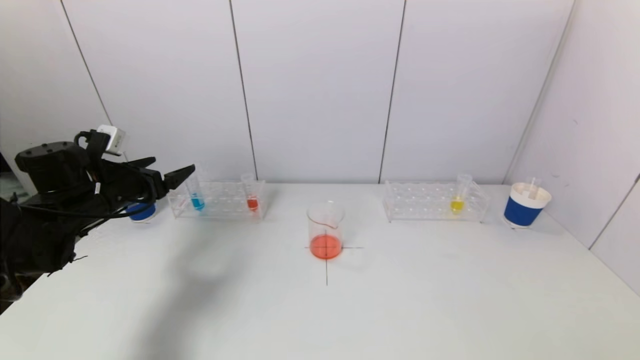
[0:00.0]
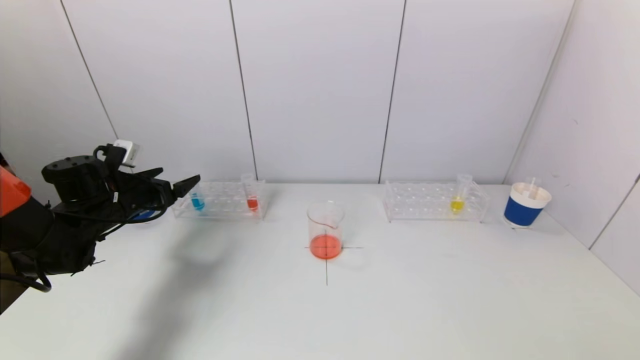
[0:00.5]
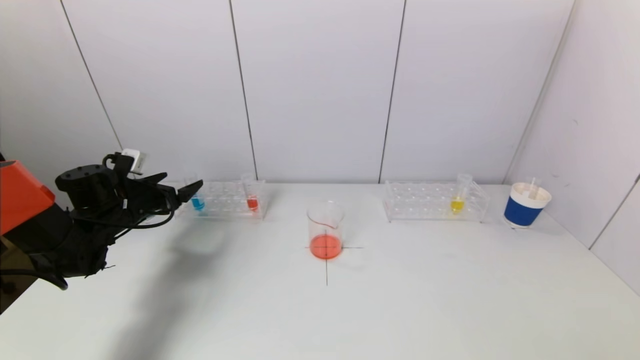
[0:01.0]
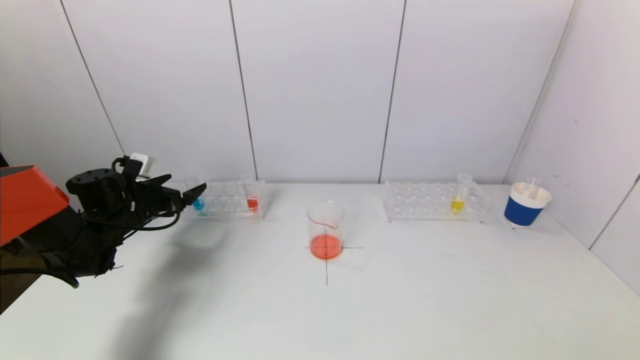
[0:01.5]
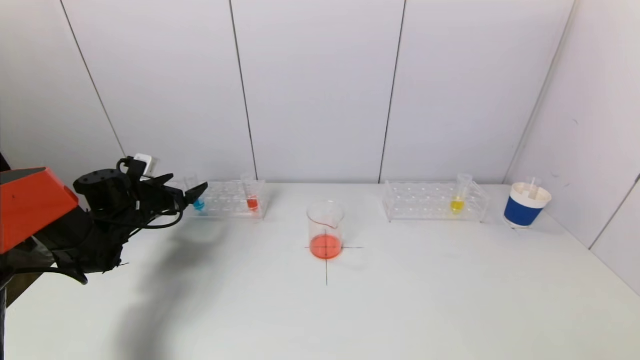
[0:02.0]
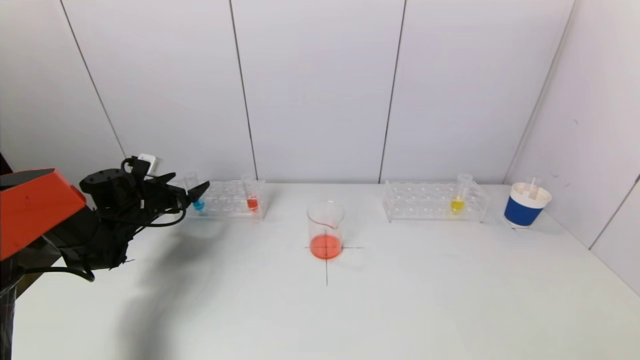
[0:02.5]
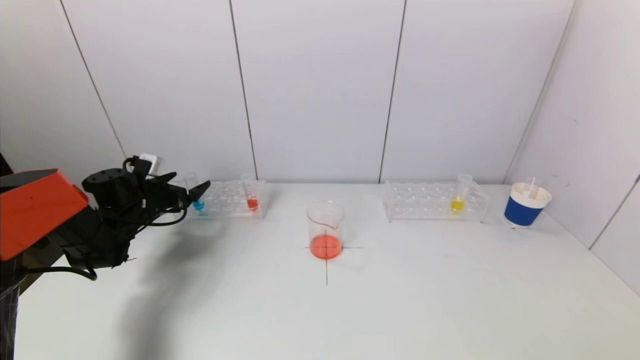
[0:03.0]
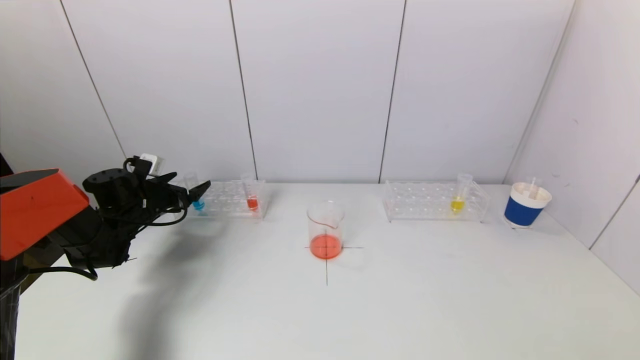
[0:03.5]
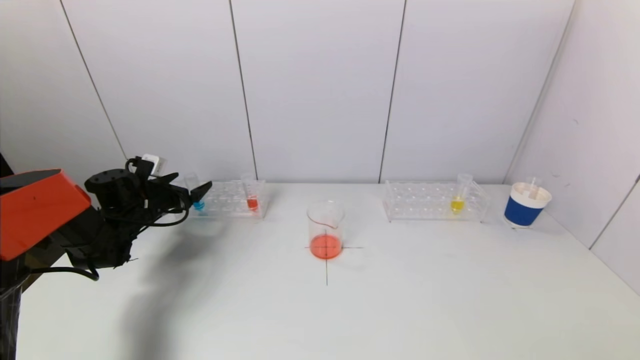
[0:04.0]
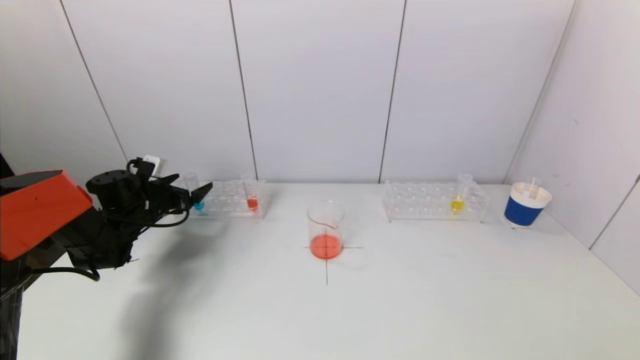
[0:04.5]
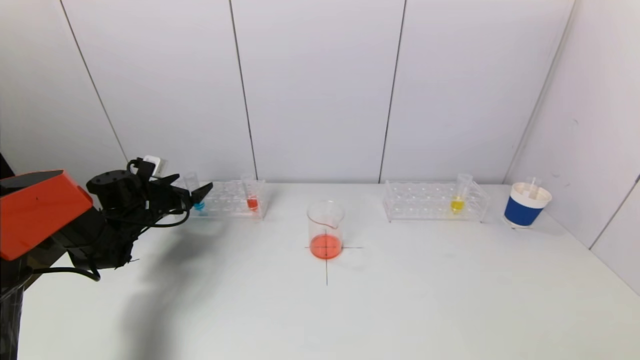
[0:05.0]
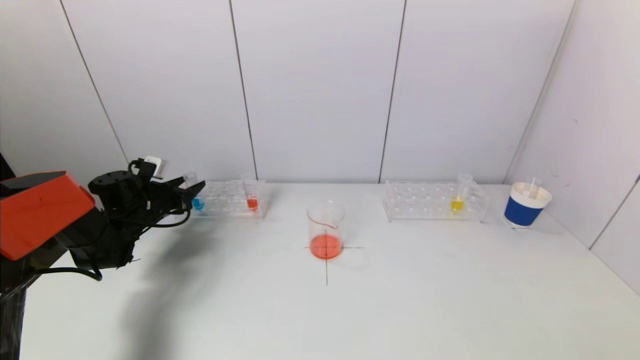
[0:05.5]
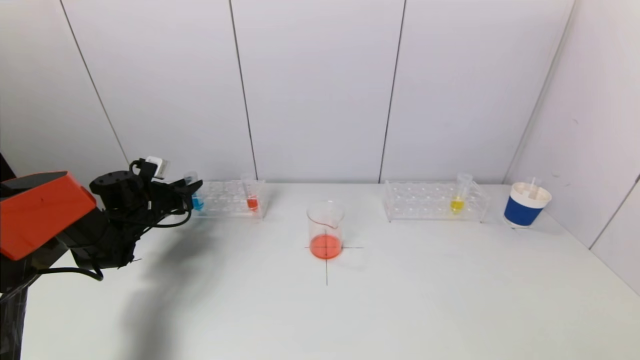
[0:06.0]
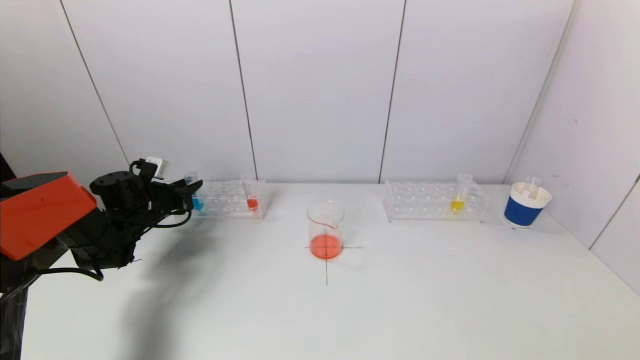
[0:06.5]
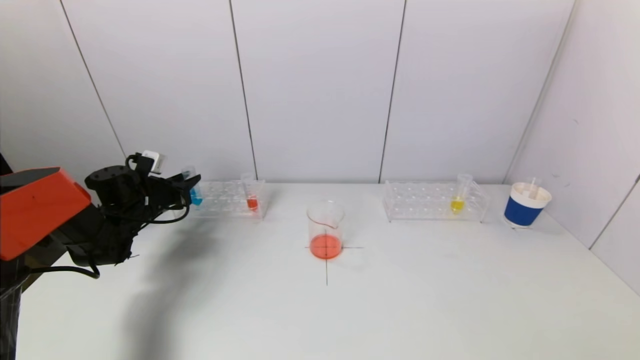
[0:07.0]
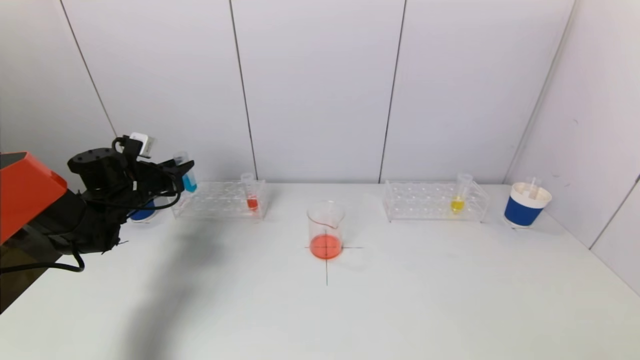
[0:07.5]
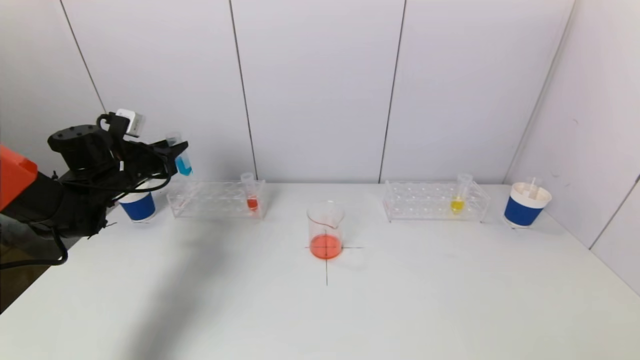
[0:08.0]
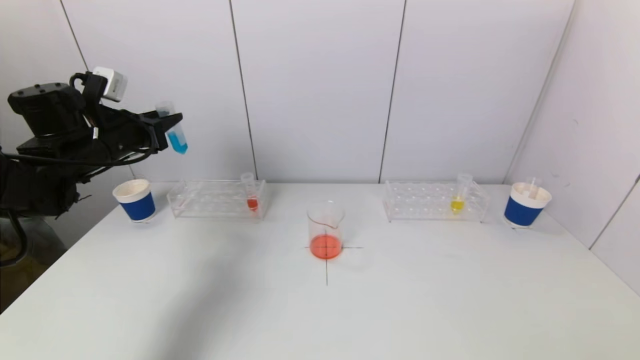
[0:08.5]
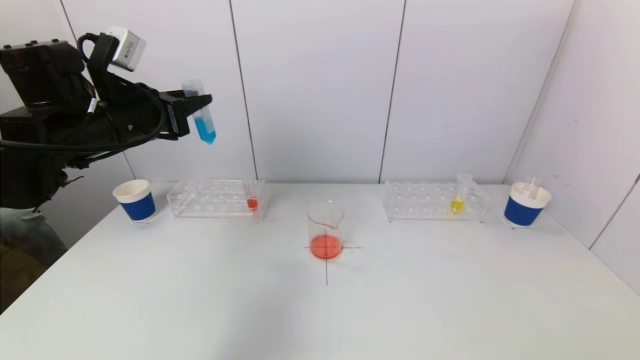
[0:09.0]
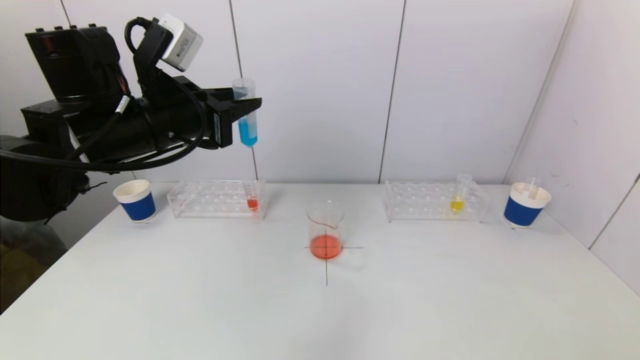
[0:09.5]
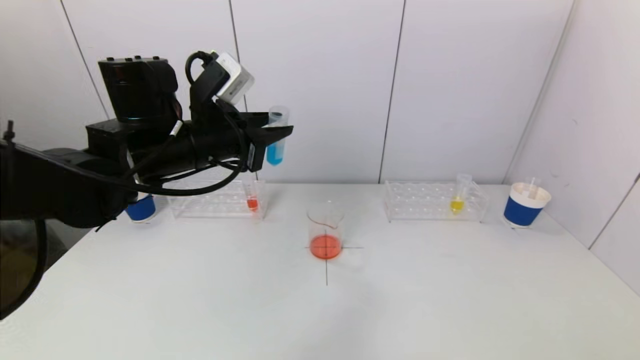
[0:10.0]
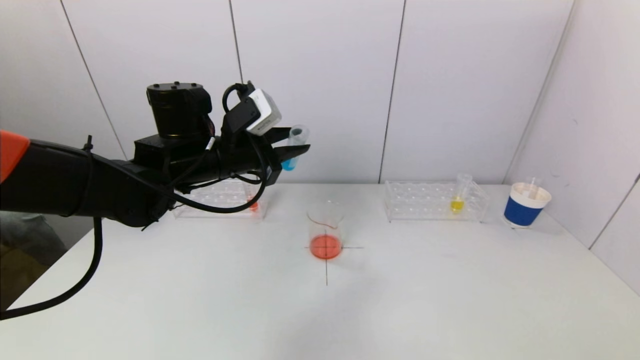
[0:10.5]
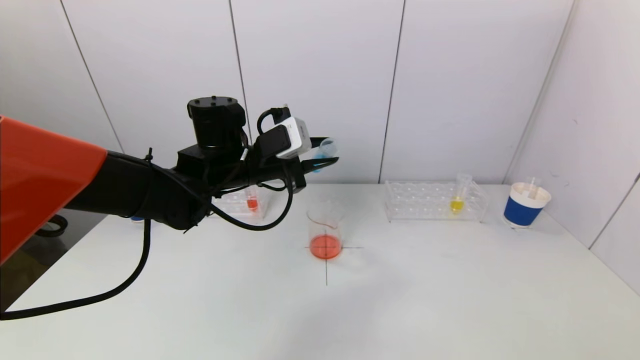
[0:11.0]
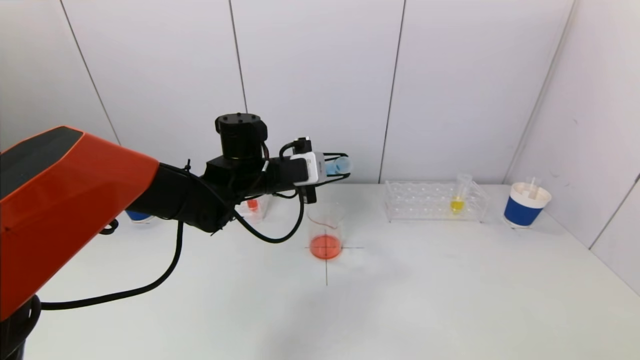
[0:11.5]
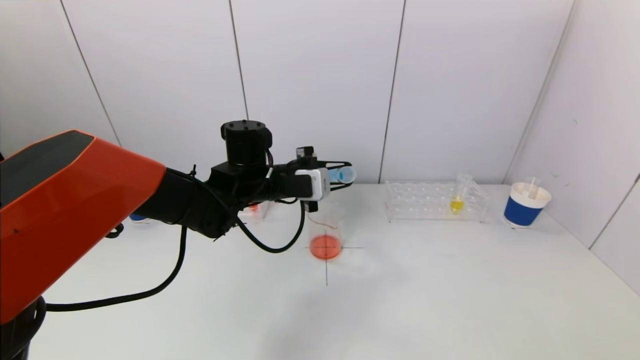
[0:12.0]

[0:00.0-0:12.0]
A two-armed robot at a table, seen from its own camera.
Task of the whole recording: pick up a test tube with pigment on left test tube rack and a test tube with pigment on right test tube rack by grippers and pour them into the beaker.
Step, 0:00.0 to 0:06.0: Grasp the blue reagent with the left gripper.
0:00.0 to 0:02.0: The left gripper travels downward and forward by about 10 cm.
0:02.0 to 0:04.0: The grippers move only a little.
0:04.0 to 0:06.0: The left gripper closes its fingers.
0:06.0 to 0:08.0: The left gripper shifts roughly 10 cm upward.
0:08.0 to 0:10.0: The left gripper heads to the right, upward and backward, covering about 25 cm.
0:10.0 to 0:12.0: The left gripper shifts about 15 cm downward, to the right and forward.

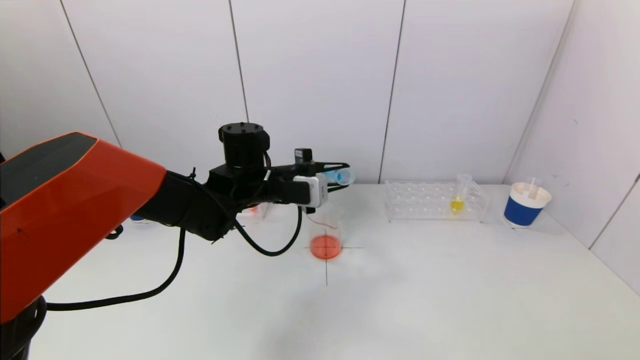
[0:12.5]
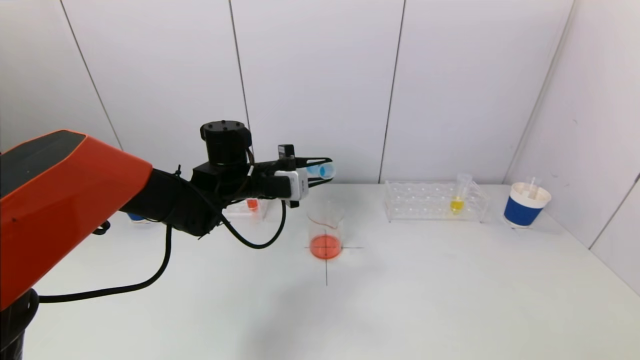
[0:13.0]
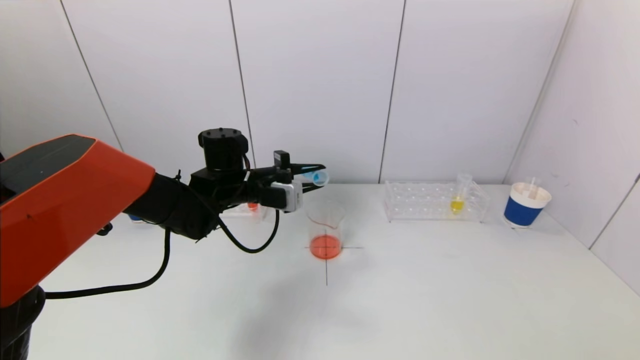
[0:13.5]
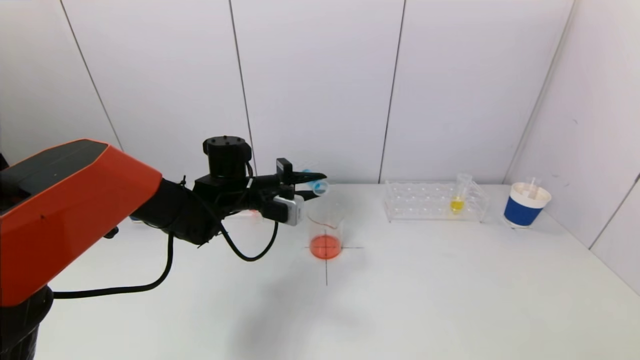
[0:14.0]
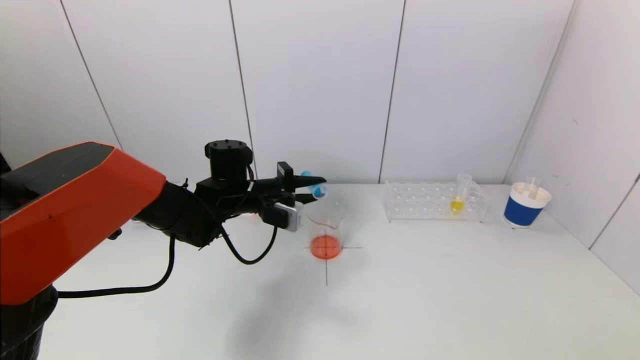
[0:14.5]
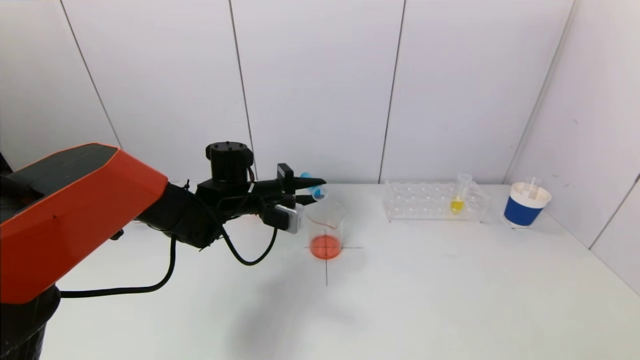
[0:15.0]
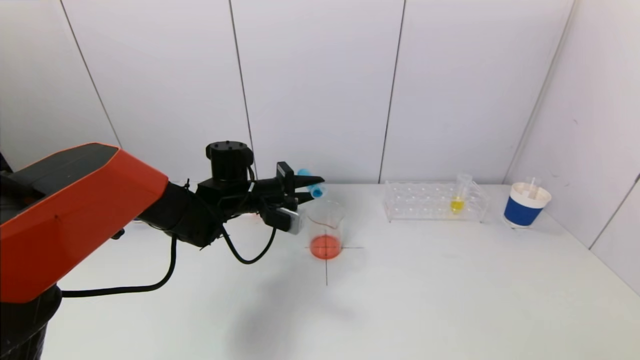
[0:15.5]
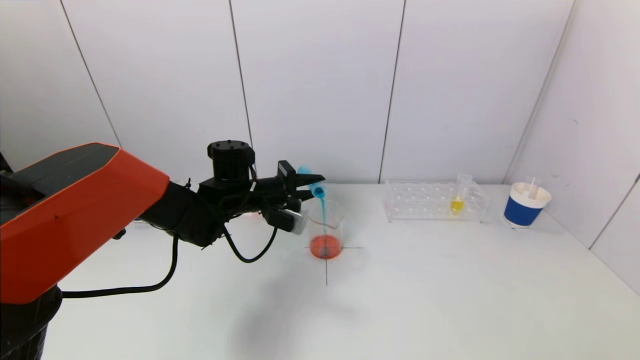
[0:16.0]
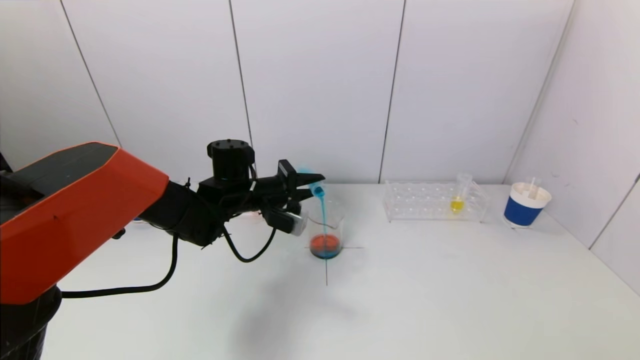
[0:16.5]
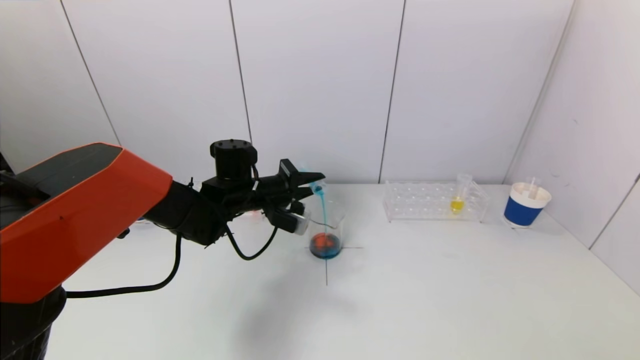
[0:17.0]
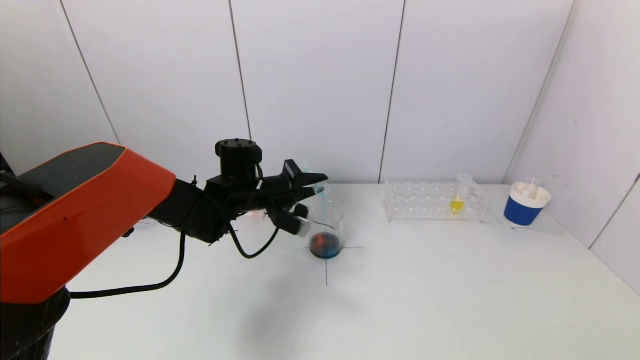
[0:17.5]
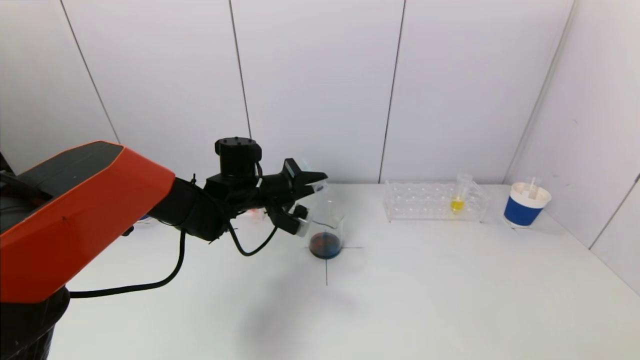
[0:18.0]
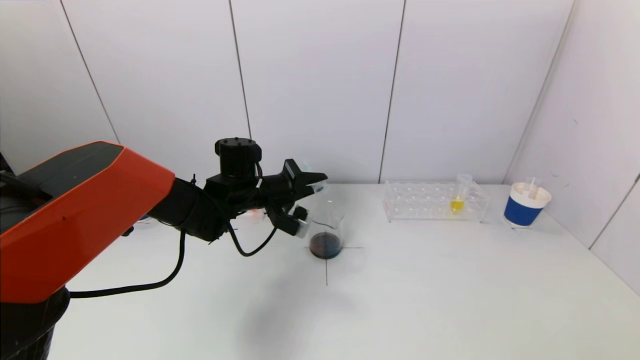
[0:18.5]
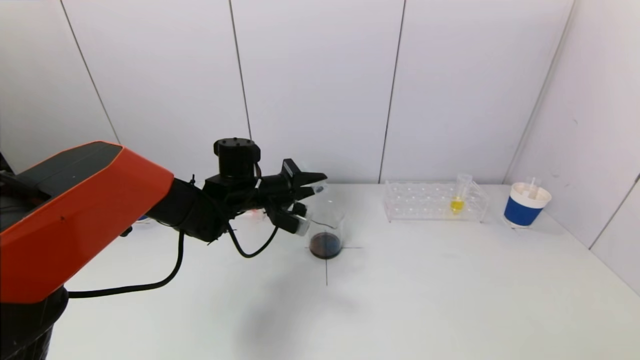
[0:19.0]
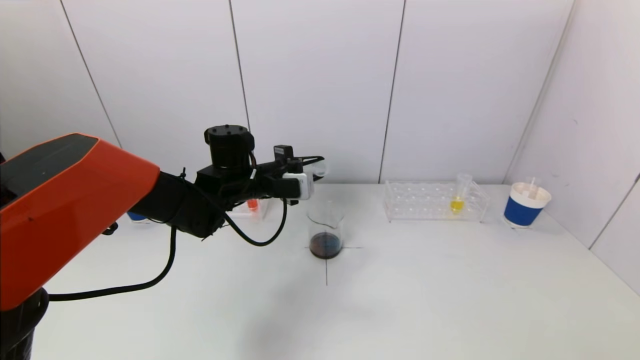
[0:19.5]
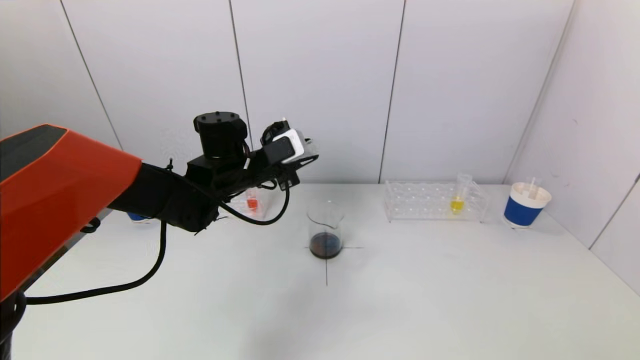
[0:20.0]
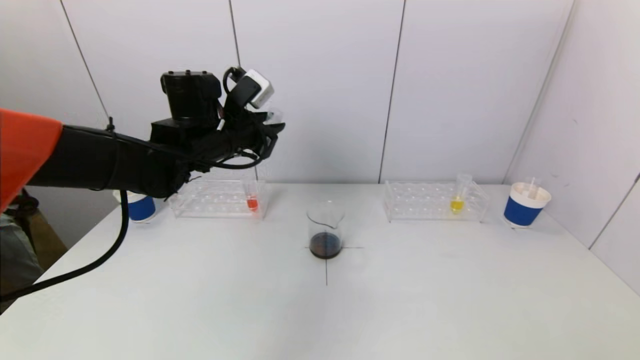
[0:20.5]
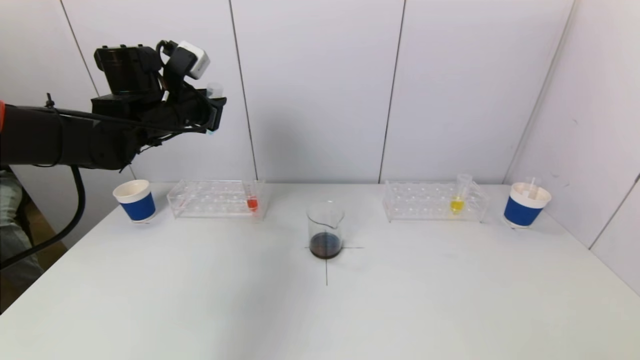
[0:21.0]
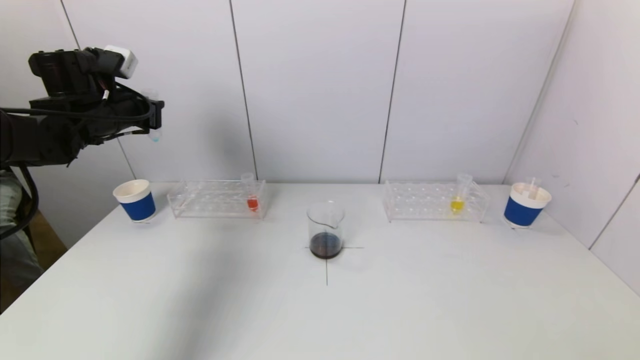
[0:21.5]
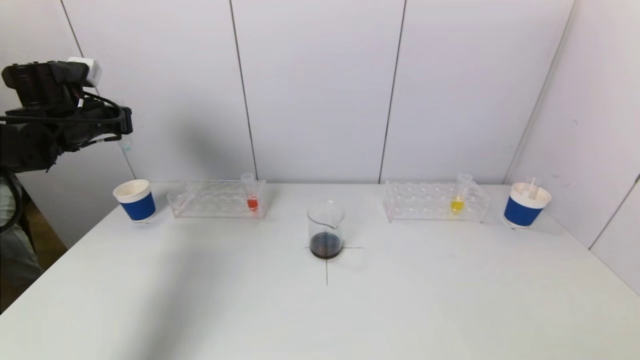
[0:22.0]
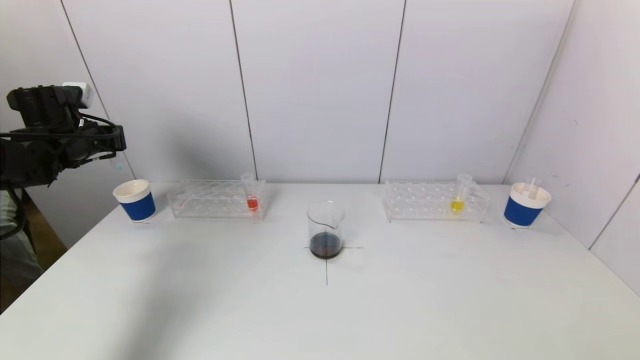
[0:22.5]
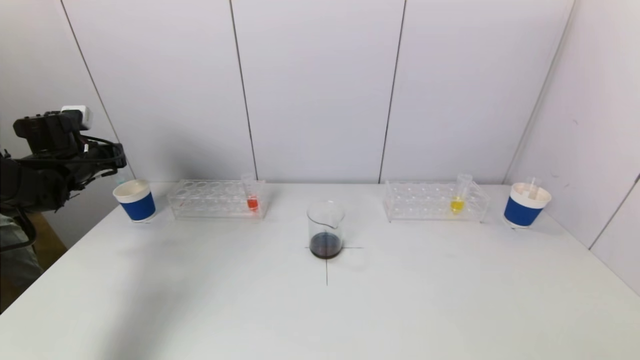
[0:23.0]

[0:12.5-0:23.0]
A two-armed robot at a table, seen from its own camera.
Task of the whole recording: pick up a test tube with pigment on left test tube rack and a test tube with pigment on right test tube rack by grippers and pour them into the beaker.
Step, 0:12.5 to 0:18.5: Pour the blue reagent into the graduated cylinder with the left gripper.
0:12.5 to 0:14.5: The left gripper changes place by approximately 5 cm.
0:14.5 to 0:16.5: The grippers make only small movements.
0:16.5 to 0:19.0: There are only small adjustments of the grippers.
0:19.0 to 0:21.0: The left gripper shifts some 20 cm upward and to the left.
0:21.0 to 0:23.0: The left gripper shifts about 20 cm to the left and downward.
